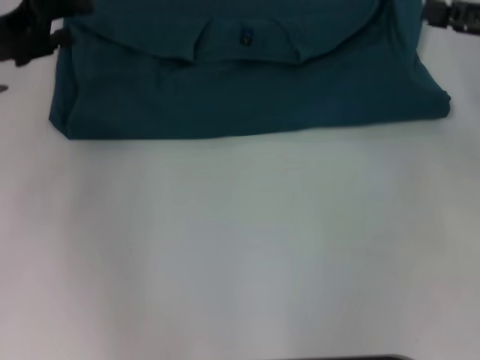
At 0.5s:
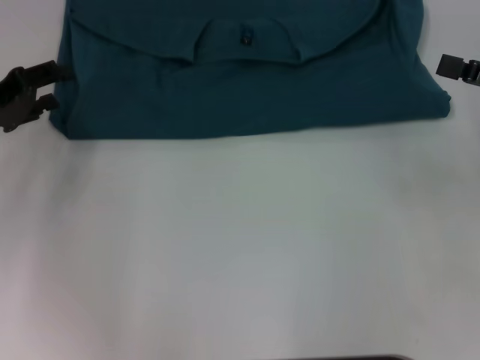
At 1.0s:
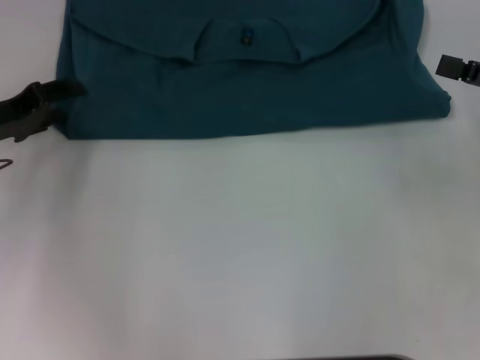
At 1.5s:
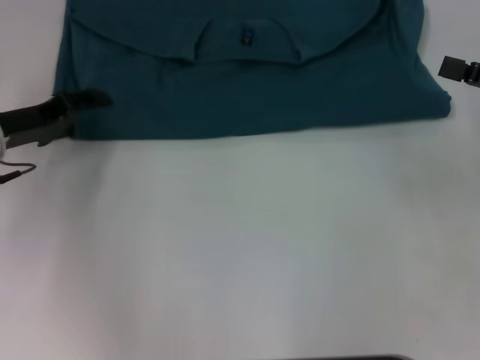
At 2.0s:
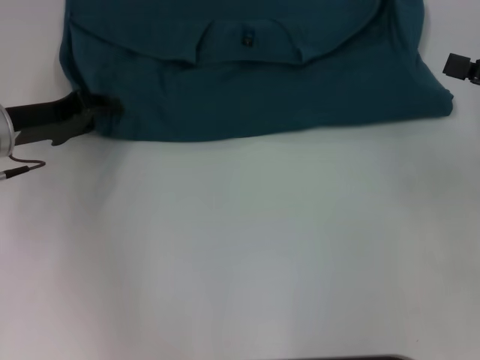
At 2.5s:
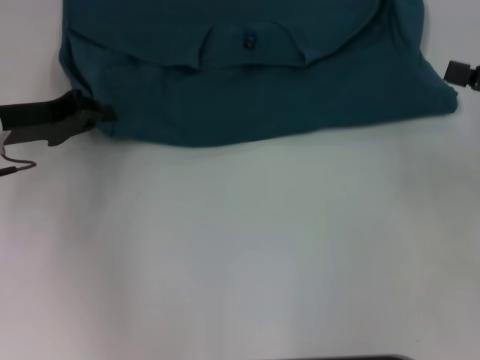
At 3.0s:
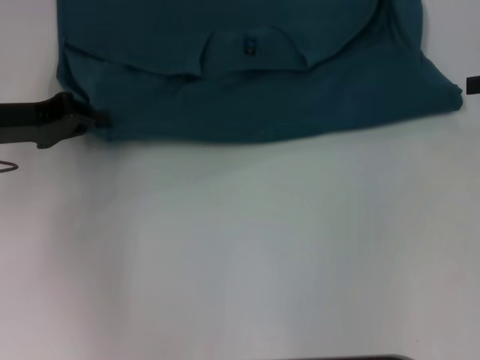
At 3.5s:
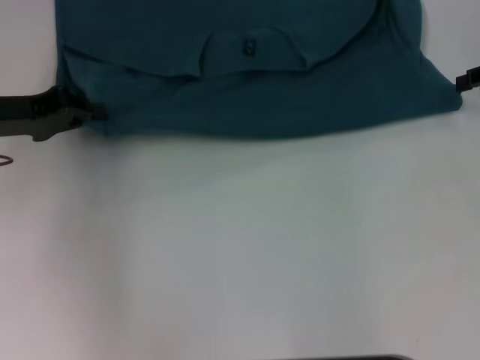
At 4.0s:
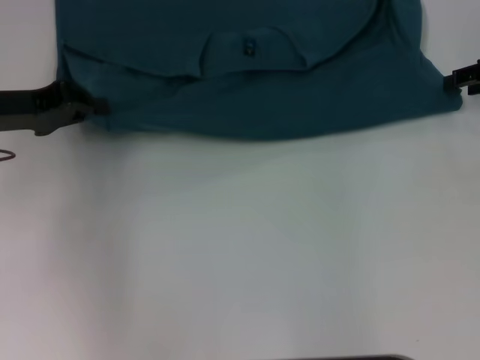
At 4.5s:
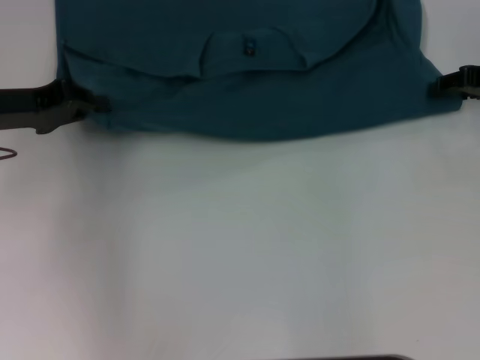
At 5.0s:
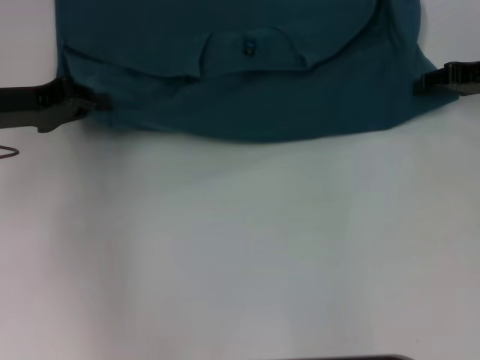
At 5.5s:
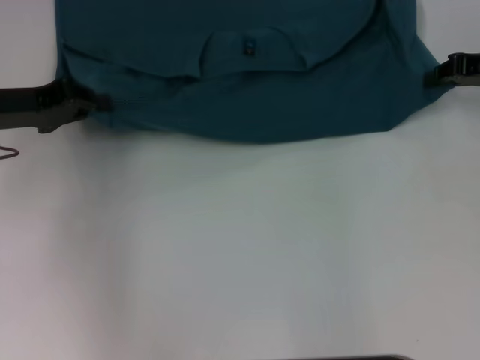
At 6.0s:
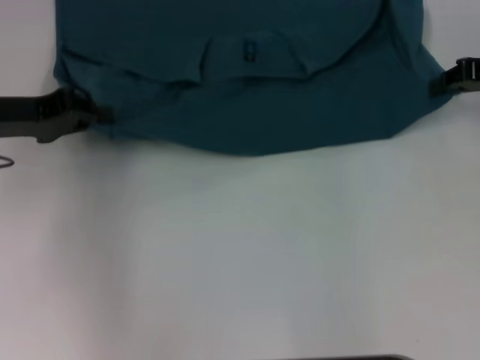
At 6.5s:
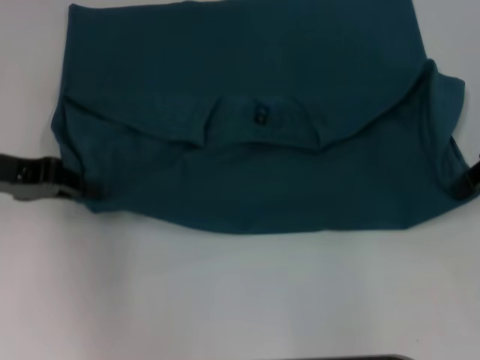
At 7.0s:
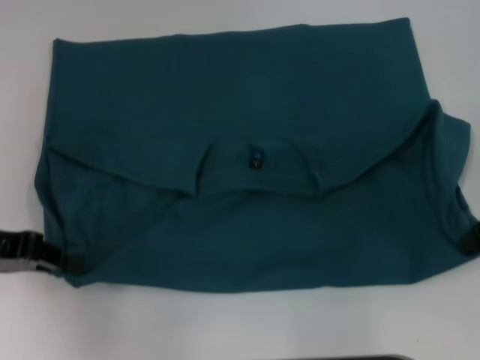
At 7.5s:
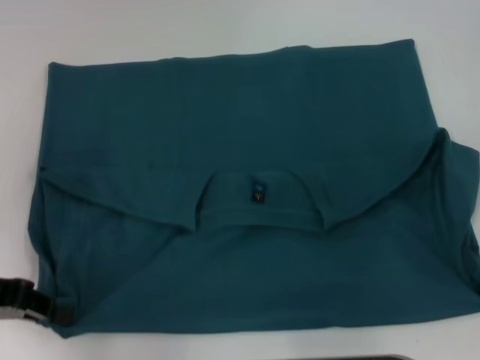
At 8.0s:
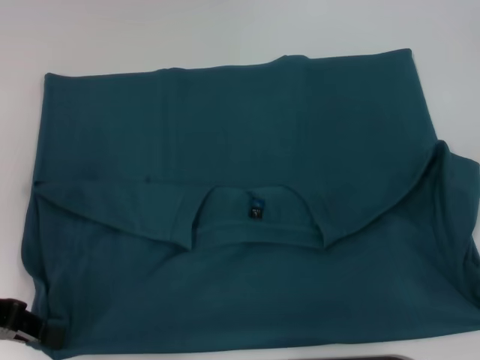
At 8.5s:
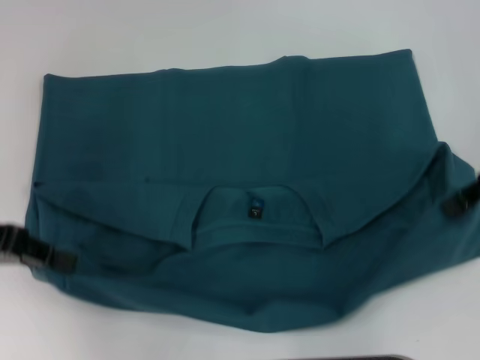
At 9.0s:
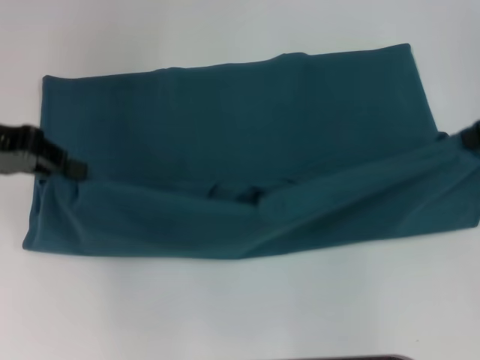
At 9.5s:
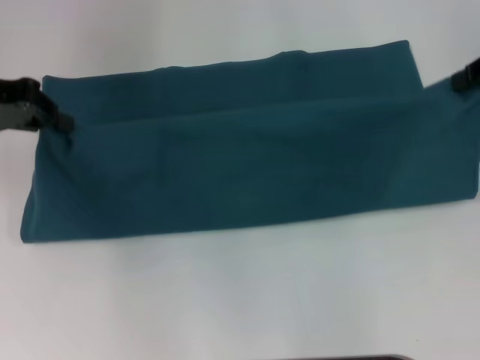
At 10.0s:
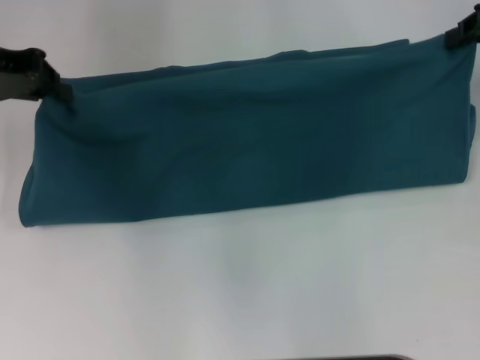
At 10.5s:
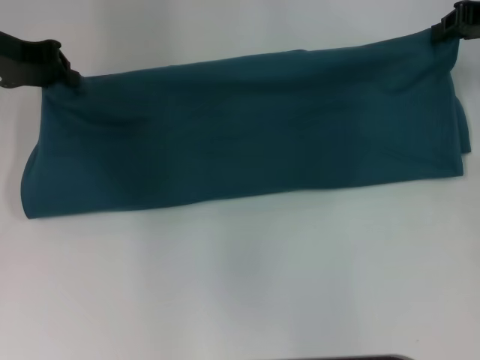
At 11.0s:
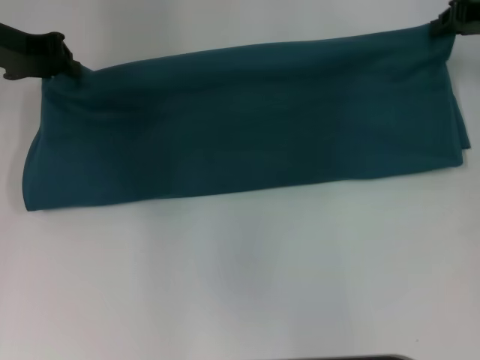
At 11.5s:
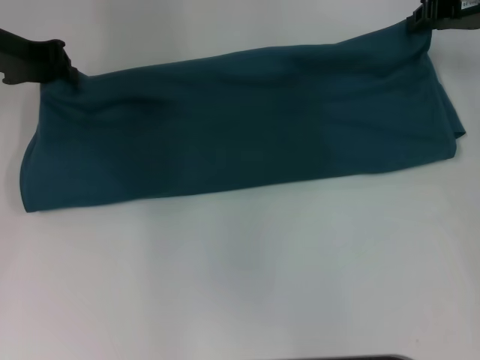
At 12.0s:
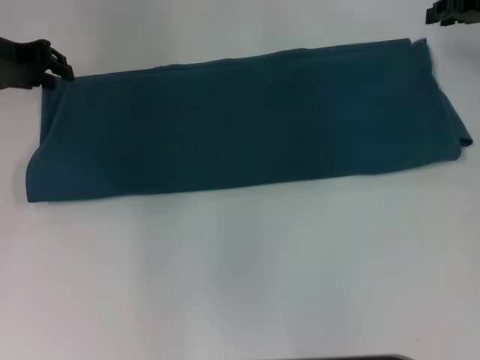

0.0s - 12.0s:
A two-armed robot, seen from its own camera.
Step, 0.0s - 7.5s: Pull the clothes with your left hand.
Step, 0.0s - 7.5s: Pull the clothes with your right hand.
0.0s - 2.0s: The left gripper shifts some 5 cm downward, while the right gripper moves backward, about 5 cm.
2.0s - 4.0s: The left gripper closes its fingers. Meanwhile the right gripper travels forward by some 10 cm.
4.0s - 6.0s: The right gripper closes.
6.0s - 8.0s: Both grippers travel together backward, approximately 10 cm.
8.0s - 10.0s: The grippers both shift forward and upward by roughly 15 cm.
10.0s - 12.0s: The right gripper shifts by roughly 5 cm.

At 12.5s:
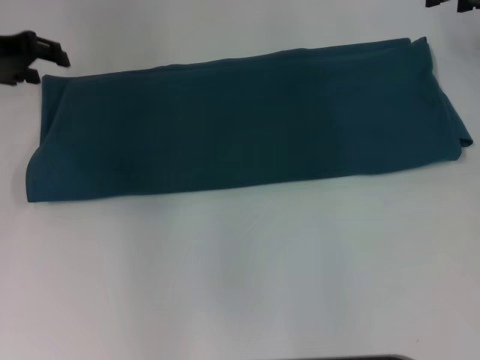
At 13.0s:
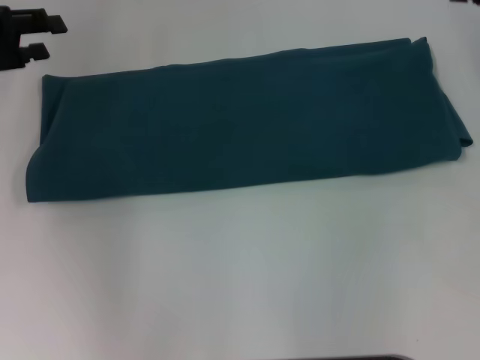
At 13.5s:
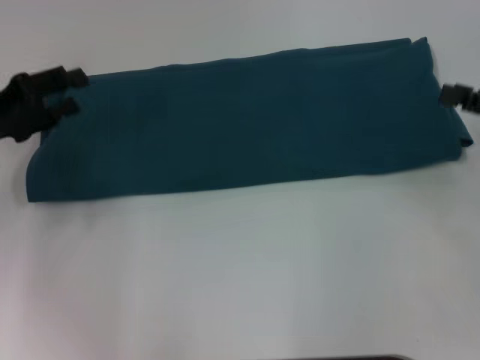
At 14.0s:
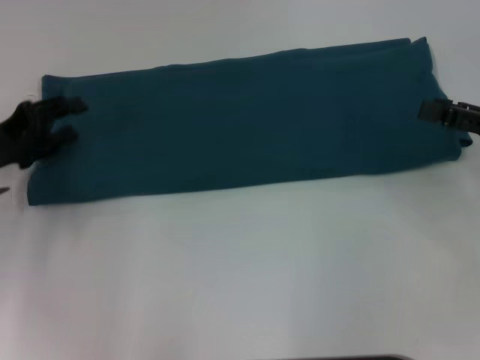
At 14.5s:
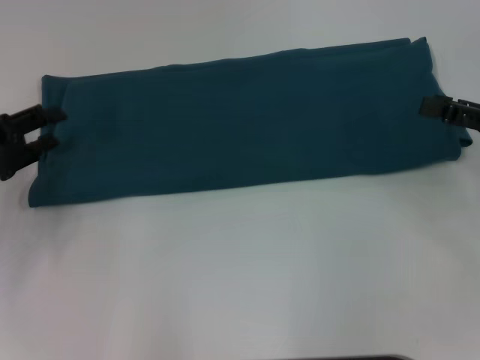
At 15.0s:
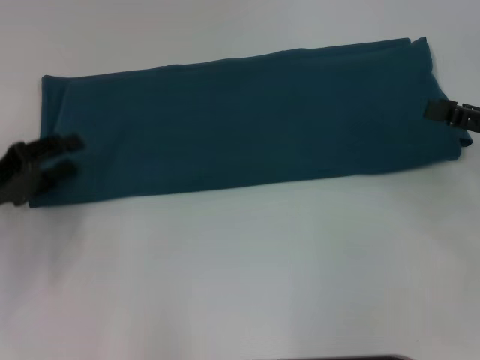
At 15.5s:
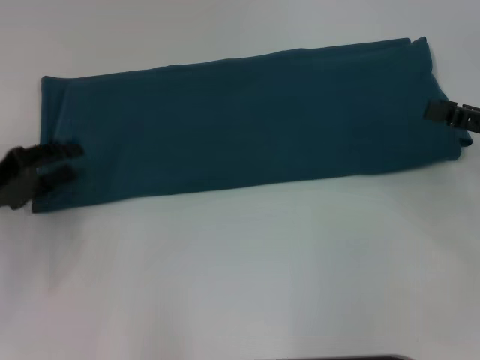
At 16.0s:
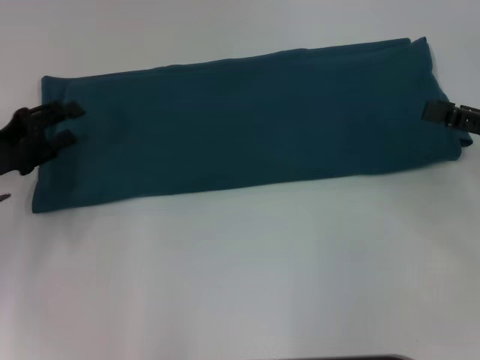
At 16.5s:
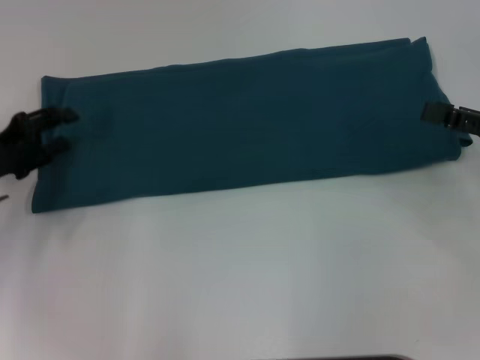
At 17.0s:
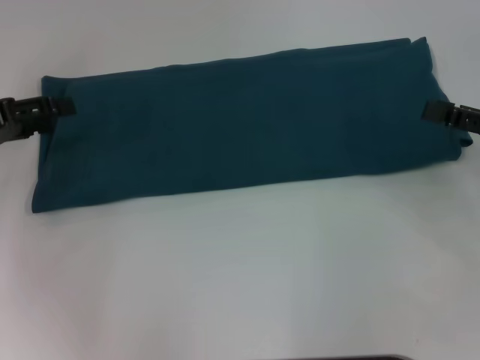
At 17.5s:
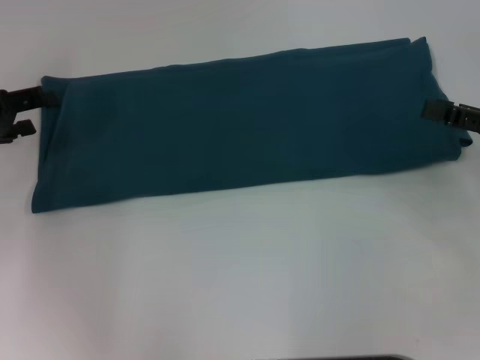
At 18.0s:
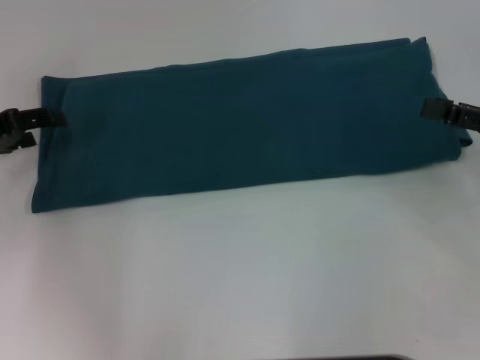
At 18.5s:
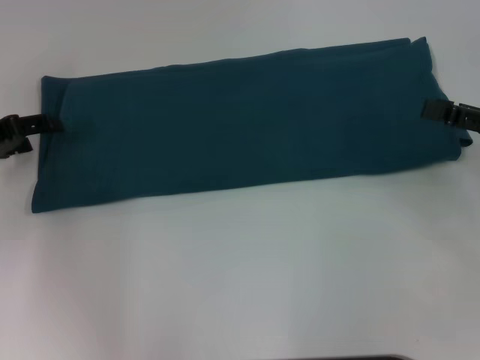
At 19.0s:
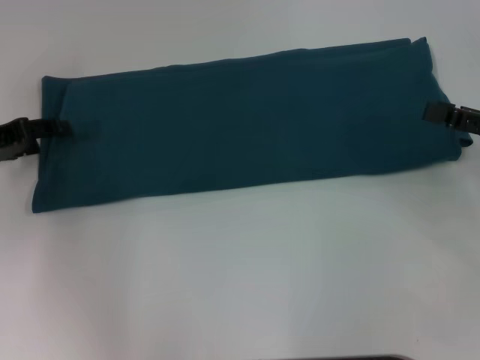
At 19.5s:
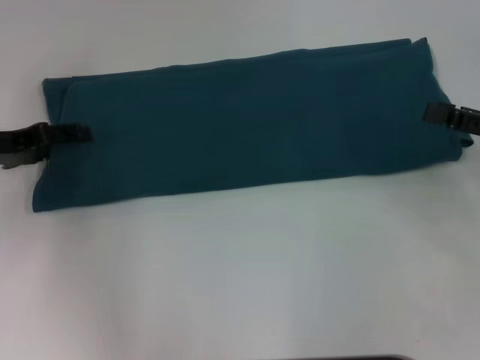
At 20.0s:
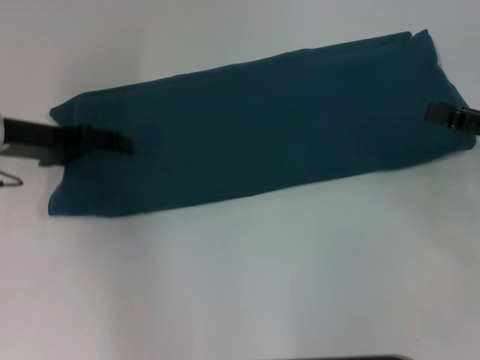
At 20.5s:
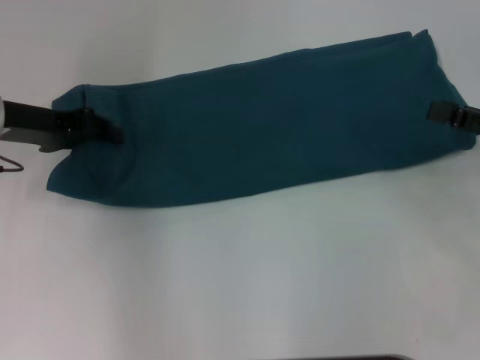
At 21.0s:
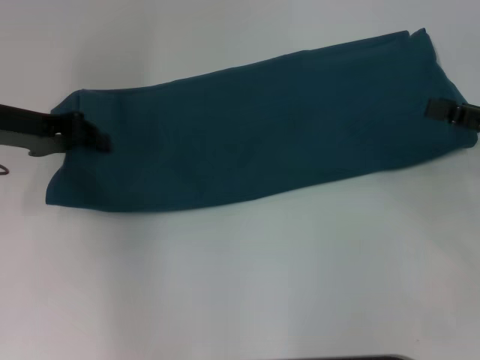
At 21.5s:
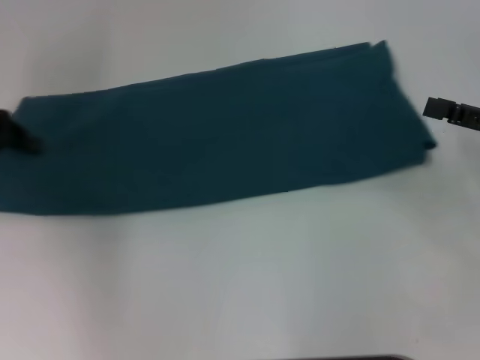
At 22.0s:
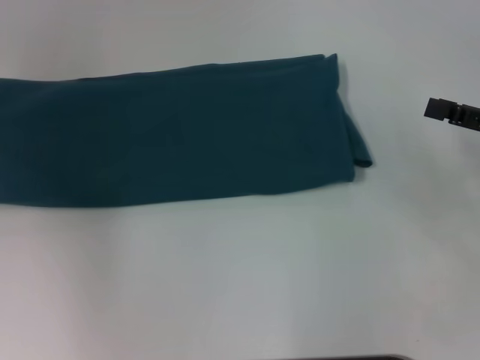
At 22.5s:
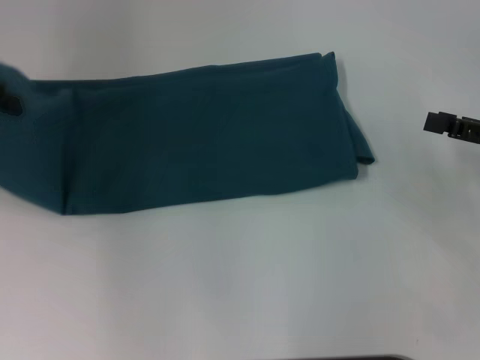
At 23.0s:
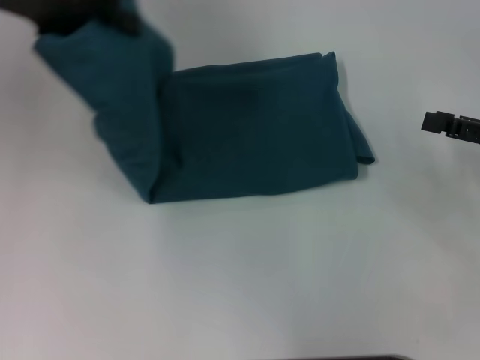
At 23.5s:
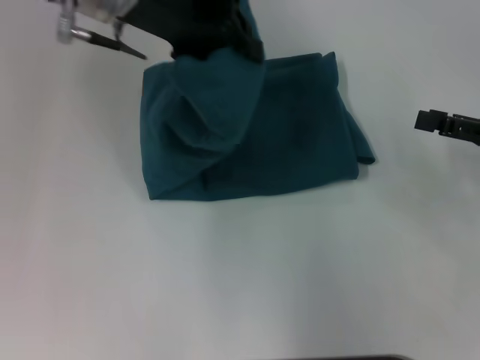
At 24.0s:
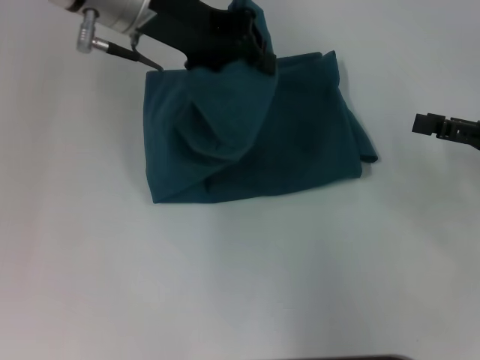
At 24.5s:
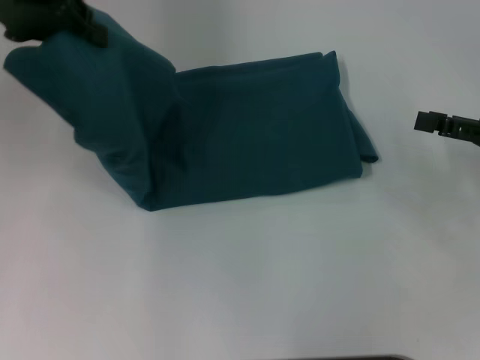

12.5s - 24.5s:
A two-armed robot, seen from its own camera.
12.5s - 14.5s: Both grippers travel together backward and downward, about 20 cm.
14.5s - 16.5s: The grippers move only a little.
16.5s - 18.5s: The left gripper shifts by about 5 cm.
18.5s - 20.5s: The left gripper shifts some 5 cm to the right, and closes its fingers.
20.5s - 22.5s: The left gripper moves upward and to the left, roughly 10 cm, and closes up.
22.5s - 24.5s: The left gripper is displaced to the right and upward by some 10 cm.

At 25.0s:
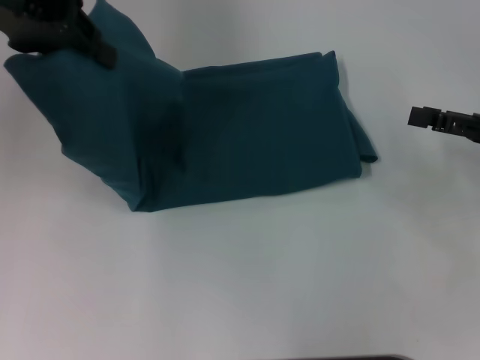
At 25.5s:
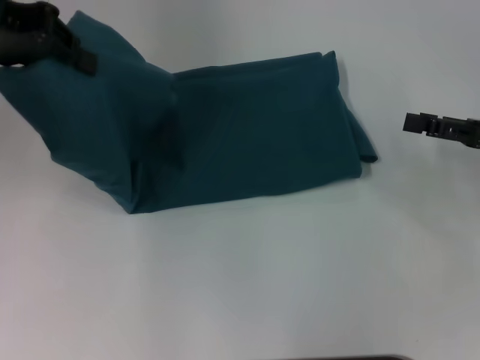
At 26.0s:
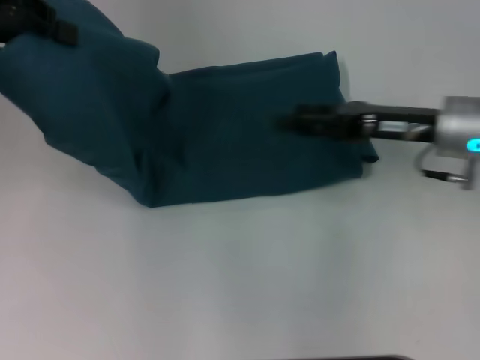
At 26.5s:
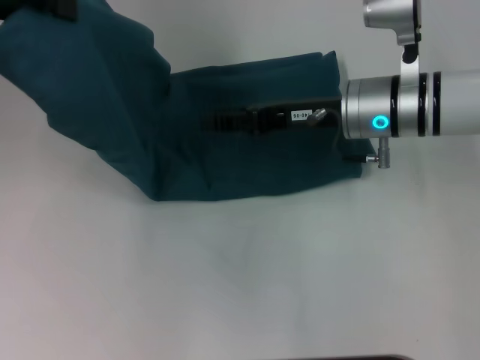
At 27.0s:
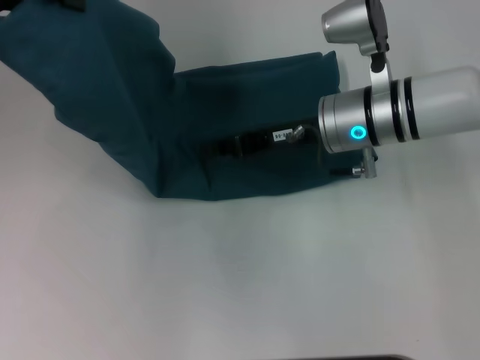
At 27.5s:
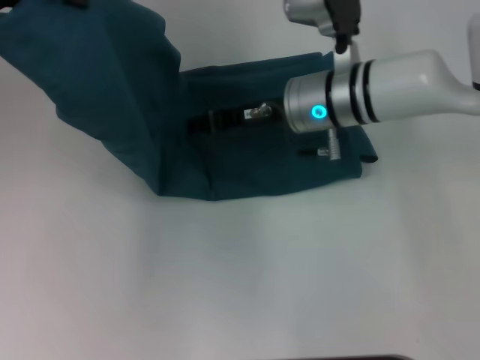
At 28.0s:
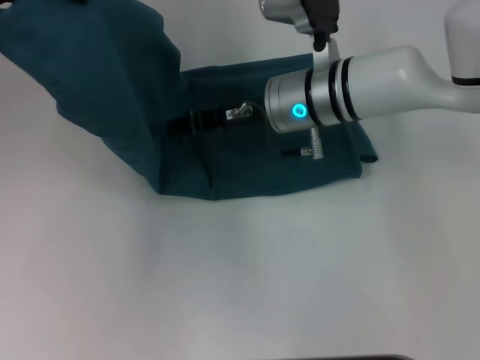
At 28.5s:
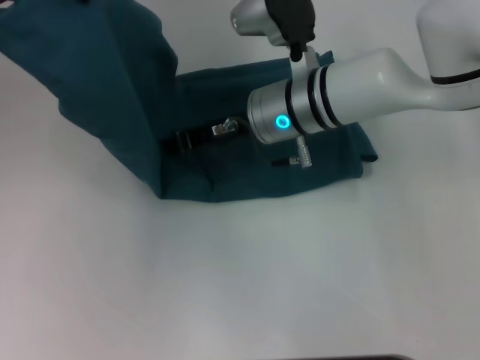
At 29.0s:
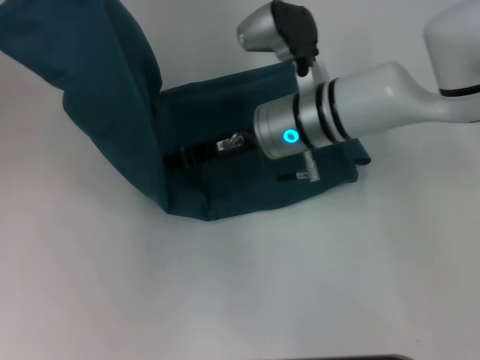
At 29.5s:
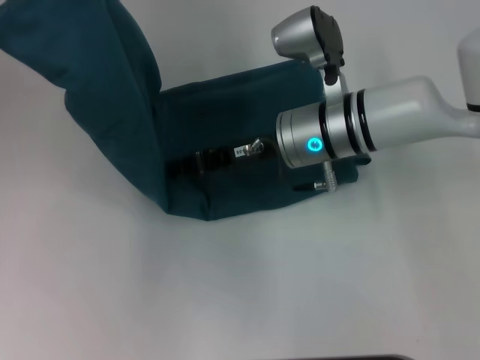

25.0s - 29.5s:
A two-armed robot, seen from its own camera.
25.0s - 27.0s: The right gripper is displaced to the left by about 20 cm, and closes up.
